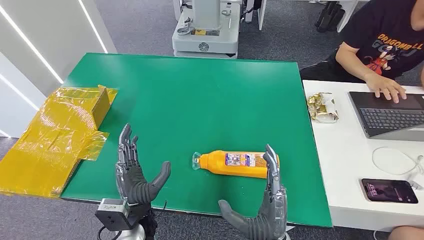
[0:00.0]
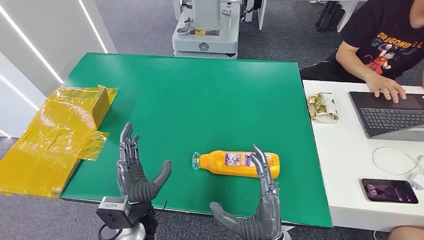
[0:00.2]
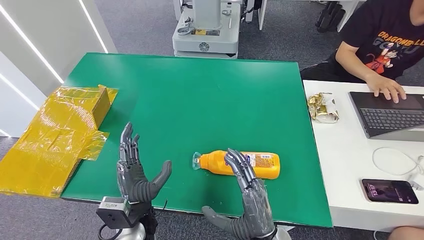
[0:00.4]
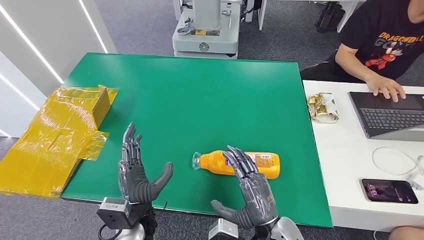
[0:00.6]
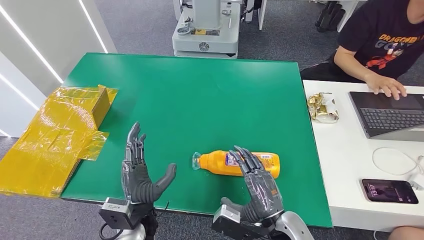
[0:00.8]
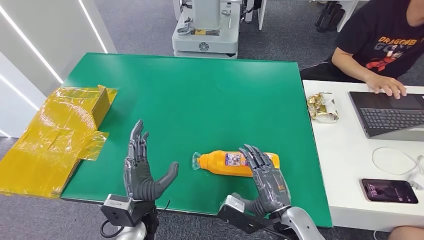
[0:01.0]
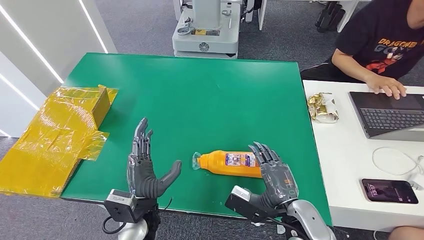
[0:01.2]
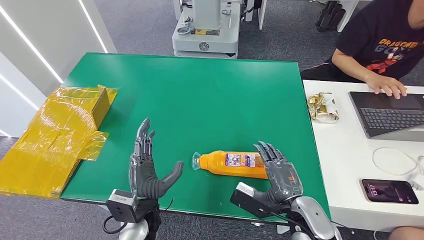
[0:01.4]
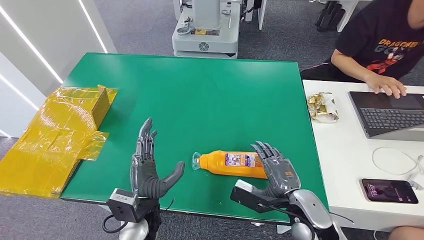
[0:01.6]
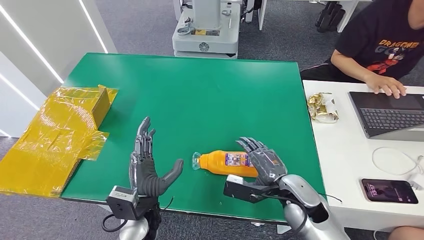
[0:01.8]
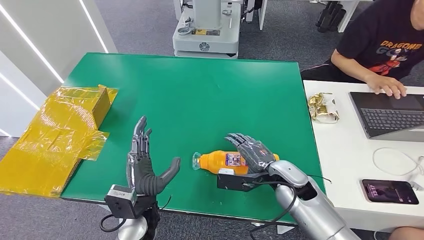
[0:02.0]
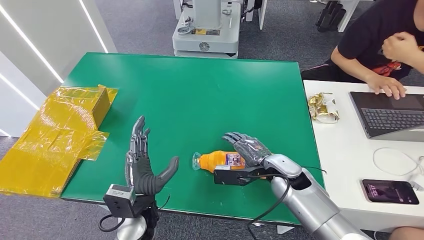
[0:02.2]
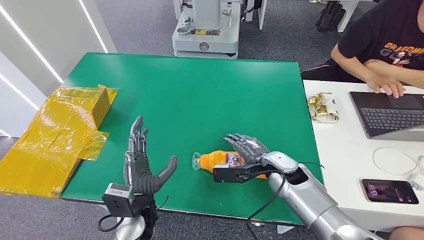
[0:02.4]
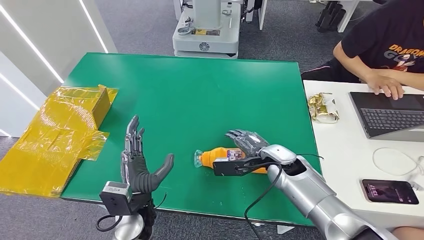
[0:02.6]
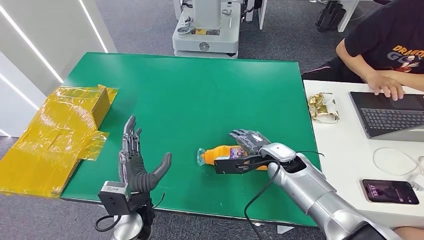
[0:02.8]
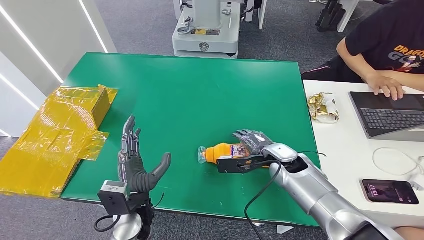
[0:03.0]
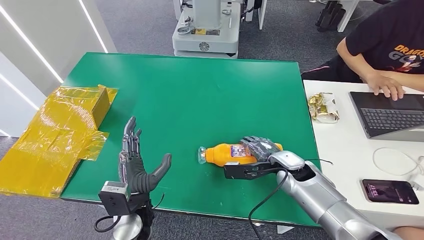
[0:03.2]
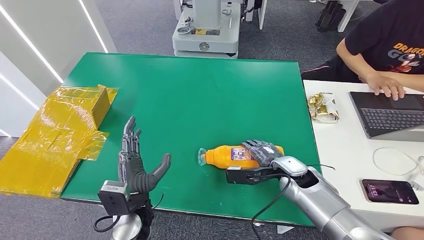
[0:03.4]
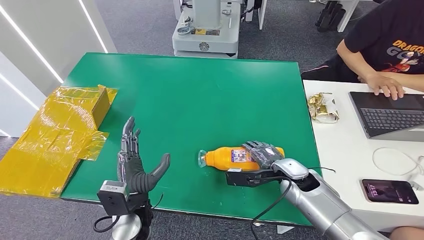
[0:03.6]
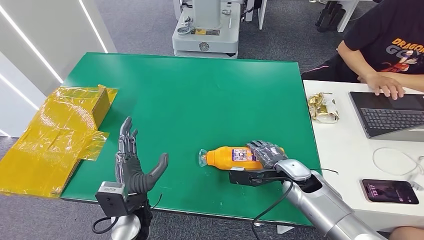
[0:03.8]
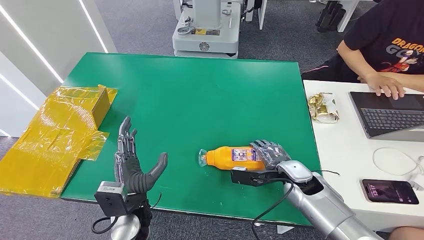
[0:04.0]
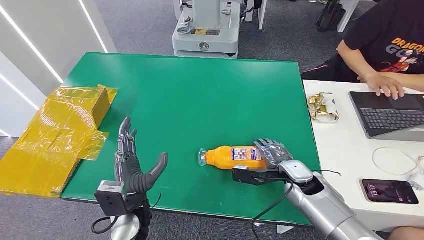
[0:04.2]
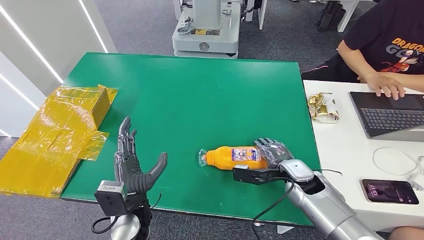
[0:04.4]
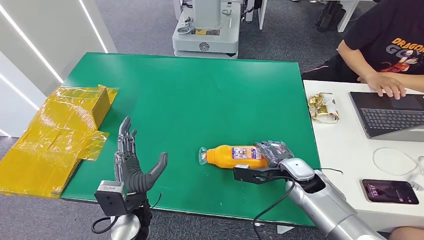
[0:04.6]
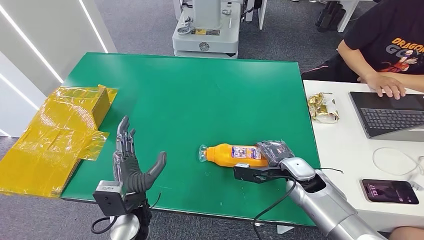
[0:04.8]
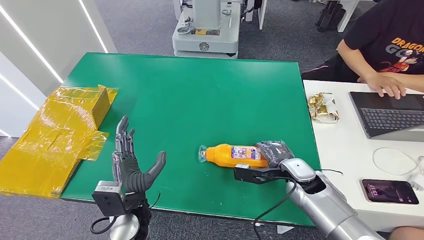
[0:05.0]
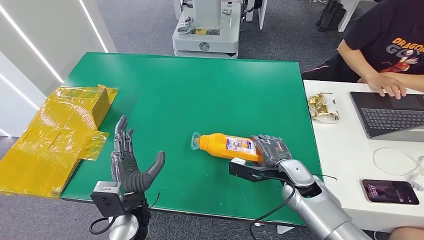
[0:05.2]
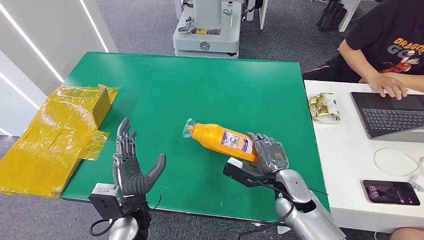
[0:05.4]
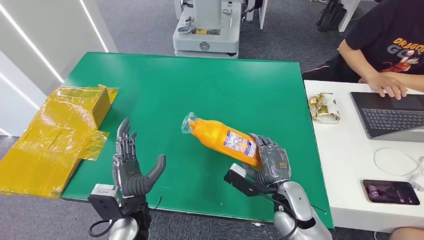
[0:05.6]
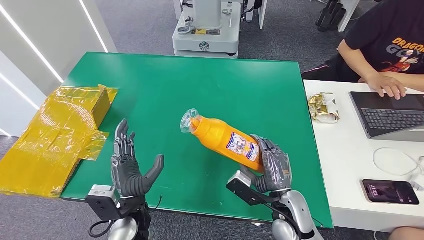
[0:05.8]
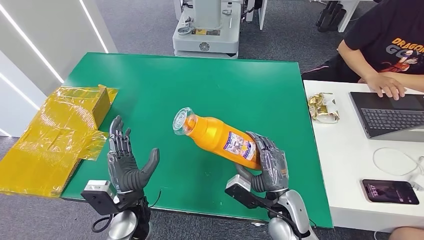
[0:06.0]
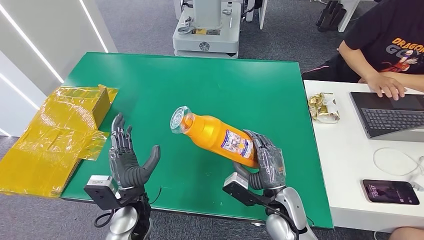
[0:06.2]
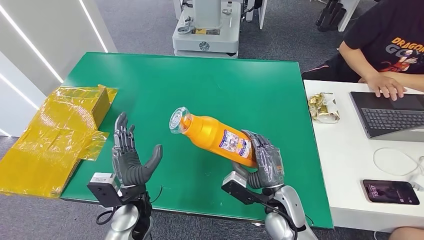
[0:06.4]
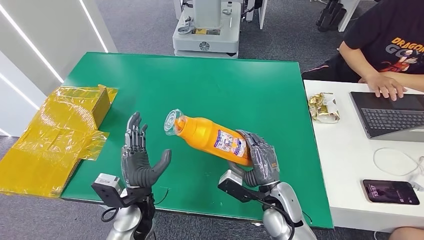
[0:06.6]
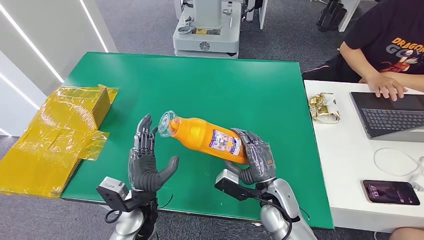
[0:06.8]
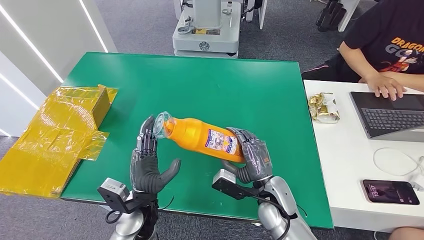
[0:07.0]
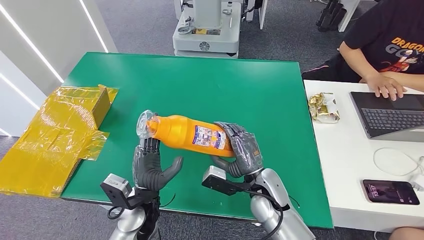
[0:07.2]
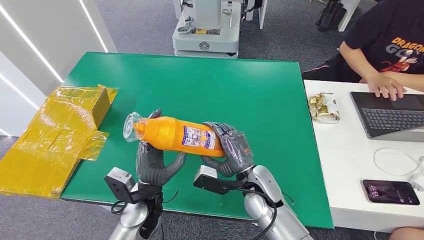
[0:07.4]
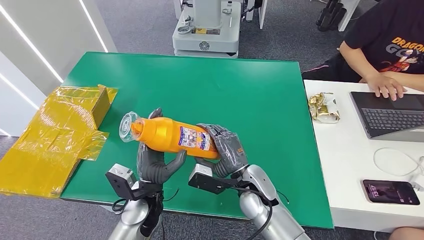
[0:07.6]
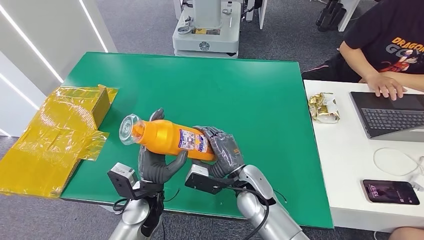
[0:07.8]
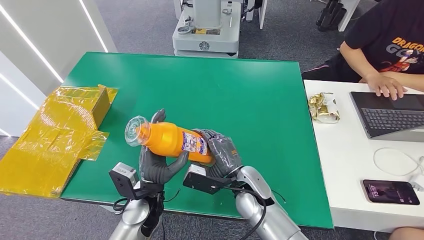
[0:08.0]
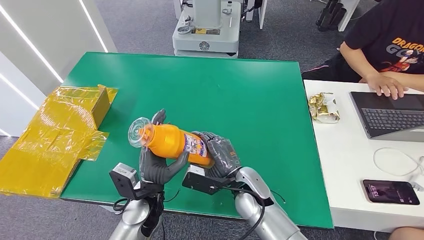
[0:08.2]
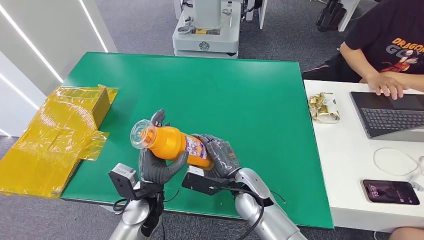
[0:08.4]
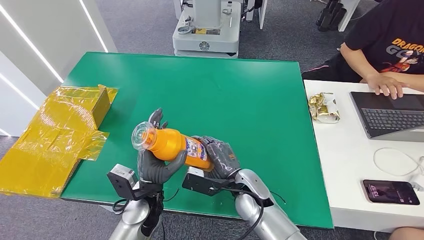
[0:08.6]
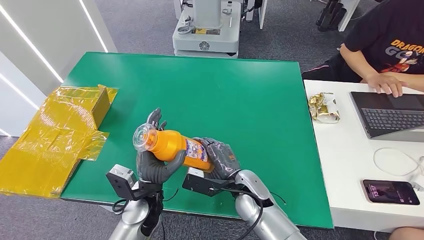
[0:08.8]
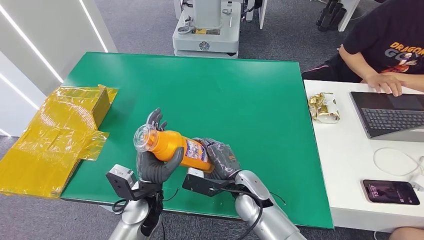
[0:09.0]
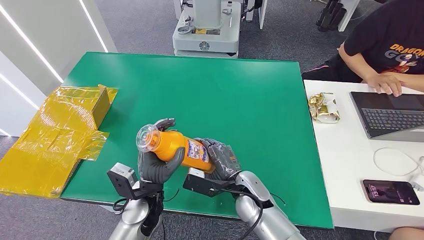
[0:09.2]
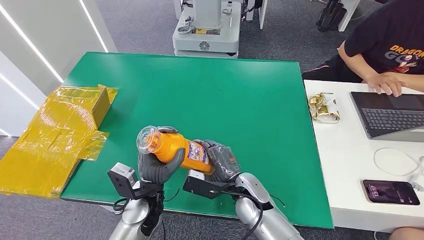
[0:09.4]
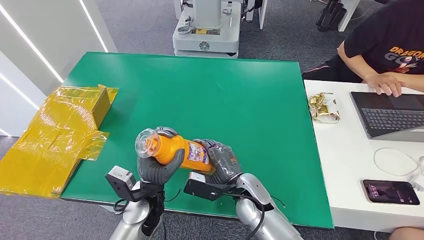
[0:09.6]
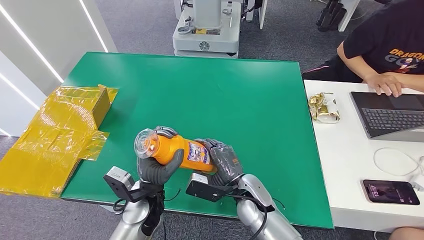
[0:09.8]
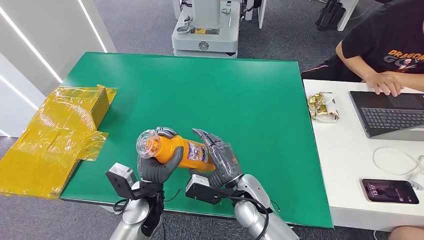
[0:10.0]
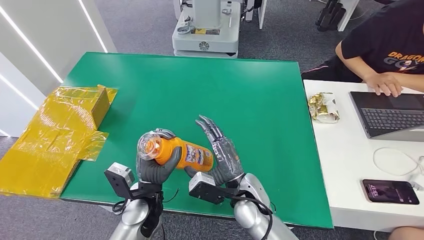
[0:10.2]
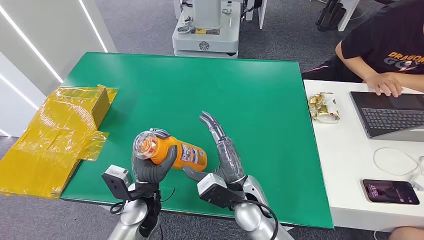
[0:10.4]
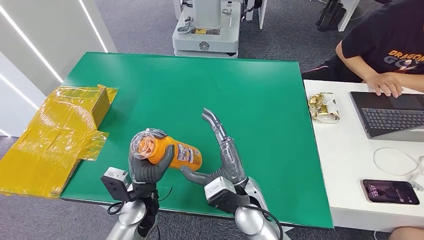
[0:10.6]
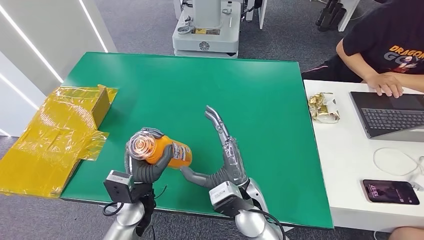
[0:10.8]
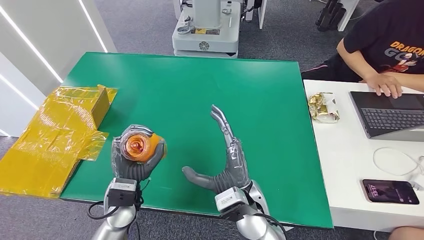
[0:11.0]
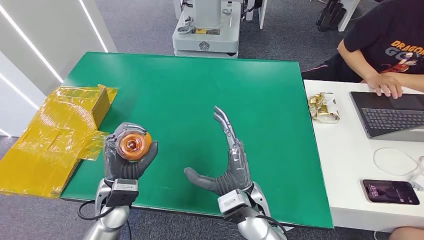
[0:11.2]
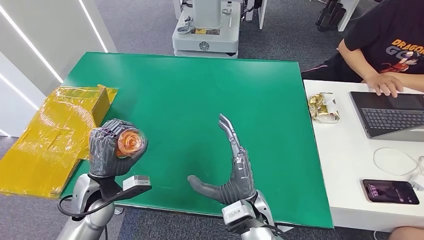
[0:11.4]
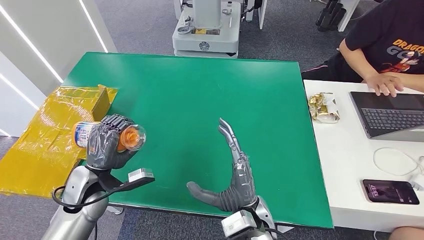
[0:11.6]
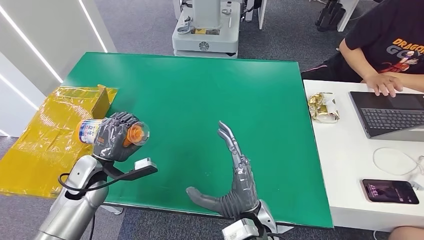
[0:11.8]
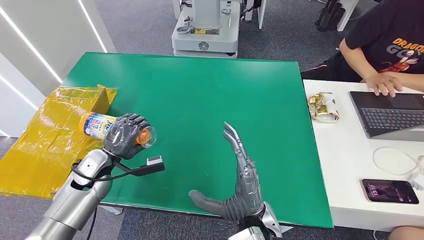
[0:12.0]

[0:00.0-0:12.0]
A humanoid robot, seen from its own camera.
Step, 0:00.0 to 0:05.4: Pick up the bottle from the table.
0:01.6 to 0:03.0: The right hand moves forward, approximately 15 cm.
0:03.0 to 0:04.4: The right hand moves about 5 cm.
0:04.4 to 0:06.0: The right hand is displaced backward and to the left by about 10 cm.
0:06.0 to 0:07.6: The right hand travels to the left by some 10 cm.
0:07.6 to 0:09.0: The hands stay close to where they were, moving slightly.
0:10.4 to 0:12.0: The left hand moves to the left and forward, some 20 cm. Meanwhile the right hand travels backward by about 5 cm.

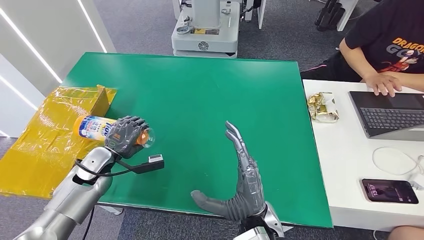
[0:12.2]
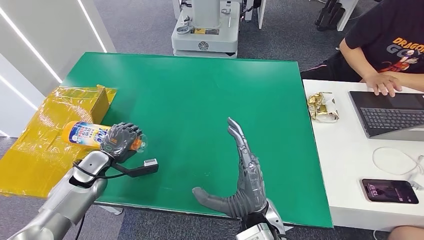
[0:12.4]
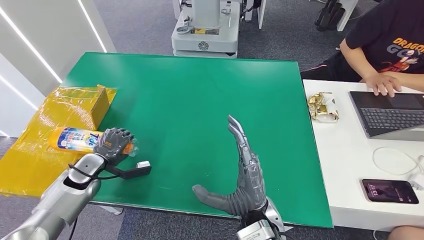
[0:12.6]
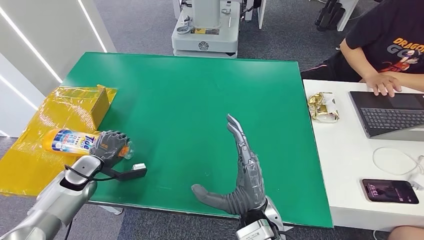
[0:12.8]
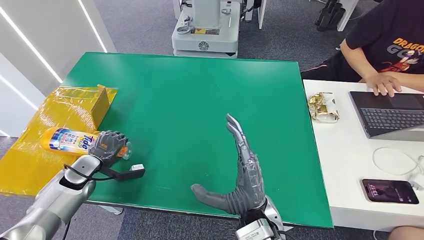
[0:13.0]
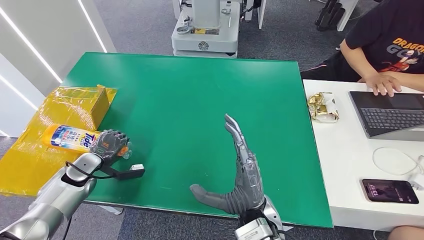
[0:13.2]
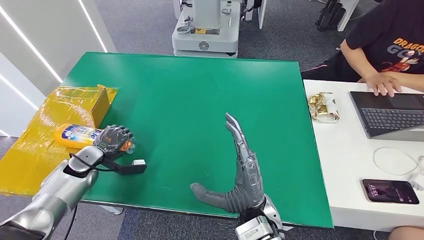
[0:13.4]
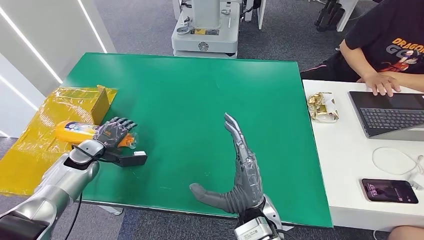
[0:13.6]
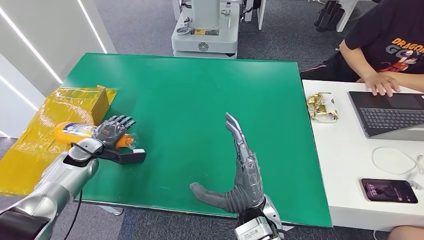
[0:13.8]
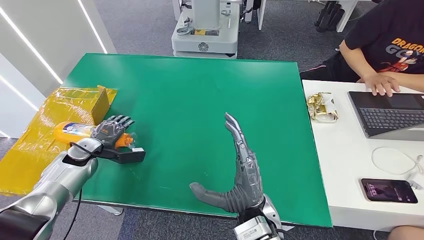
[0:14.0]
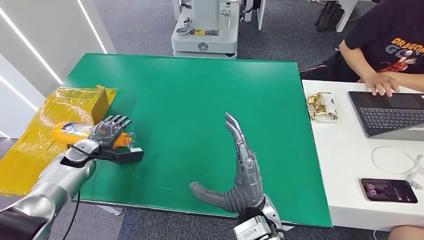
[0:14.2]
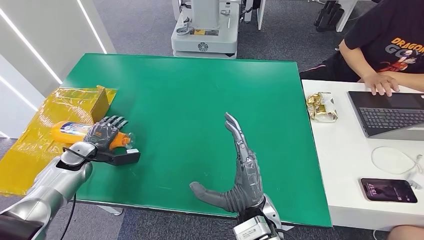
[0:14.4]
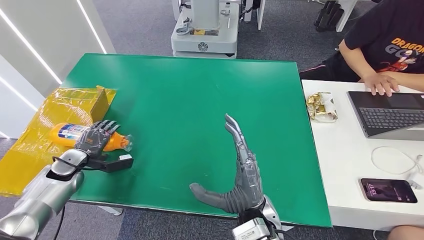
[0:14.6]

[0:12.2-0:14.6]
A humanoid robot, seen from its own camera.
Step, 0:12.2 to 0:14.6: Turn the bottle to the front side.
0:12.2 to 0:13.4: The left hand moves to the left, roughly 5 cm.
0:13.4 to 0:14.6: The hands make only small movements.
